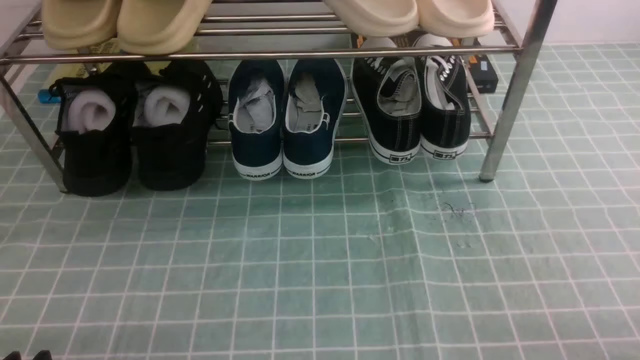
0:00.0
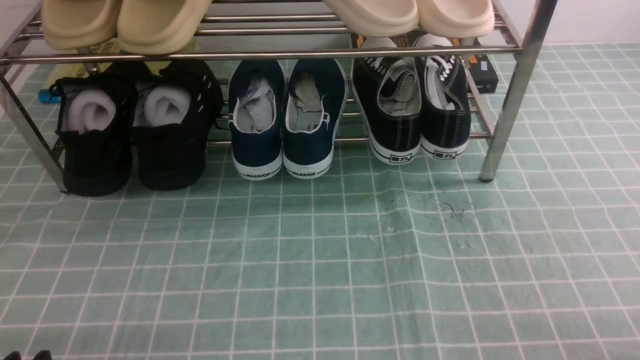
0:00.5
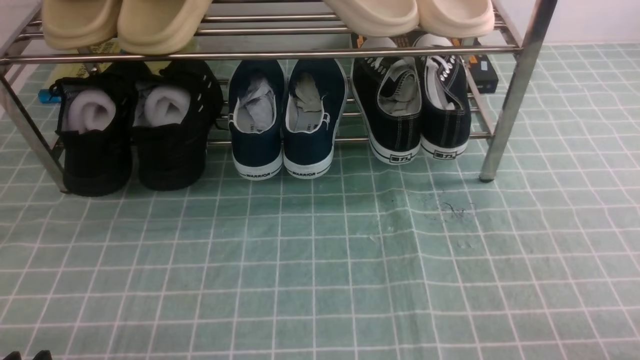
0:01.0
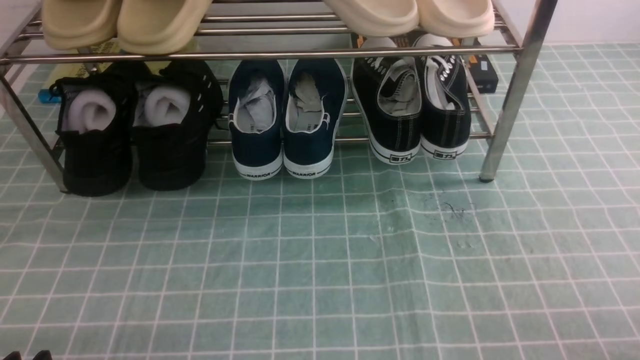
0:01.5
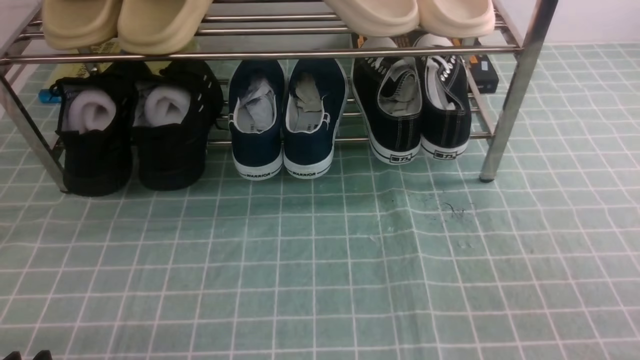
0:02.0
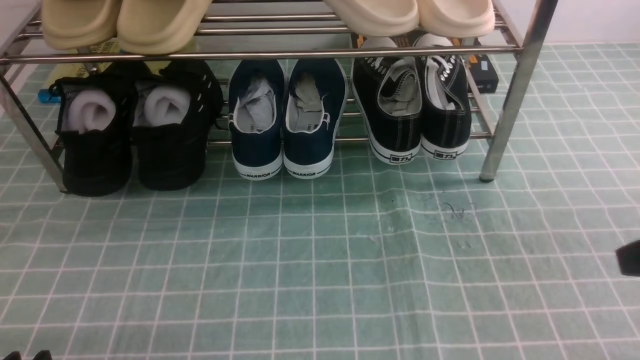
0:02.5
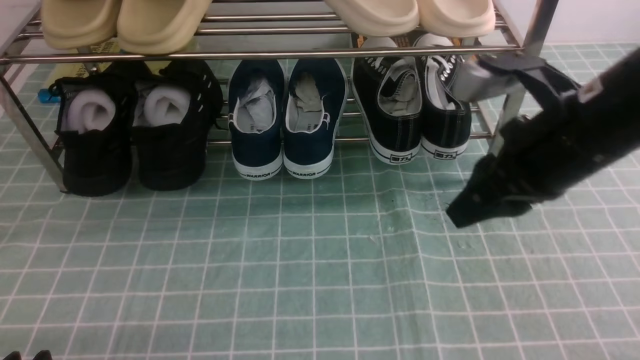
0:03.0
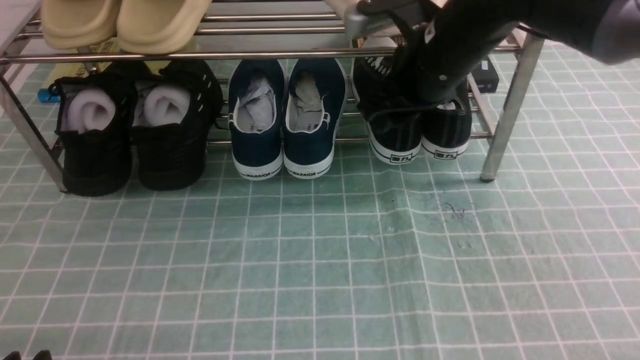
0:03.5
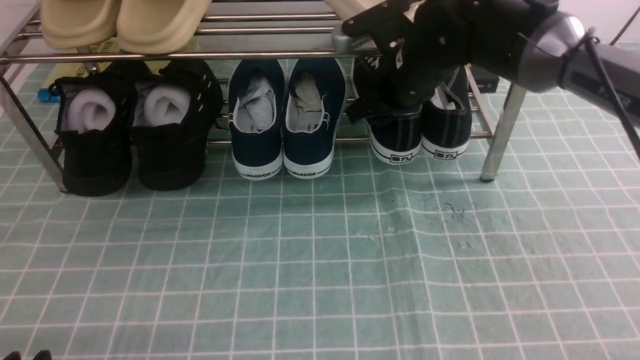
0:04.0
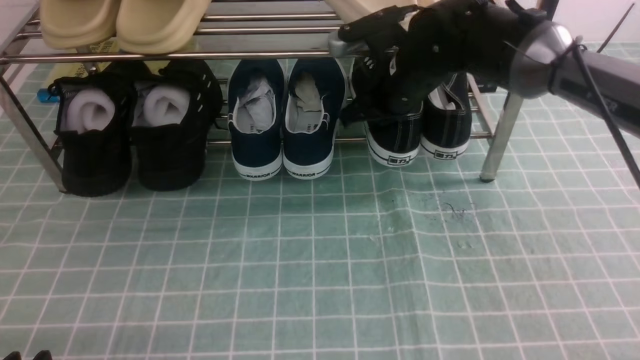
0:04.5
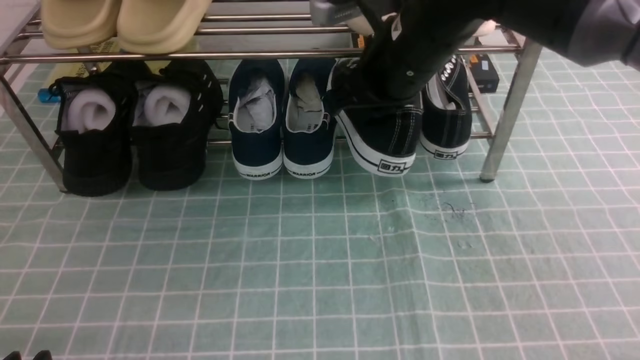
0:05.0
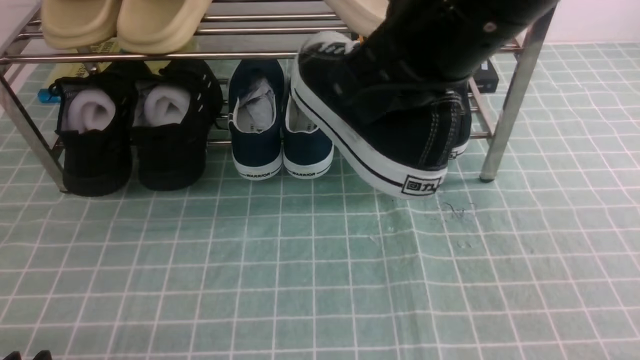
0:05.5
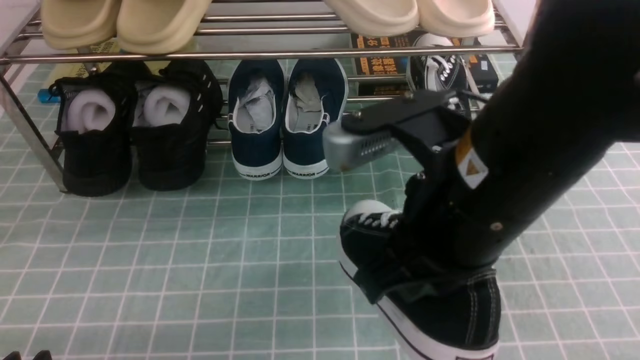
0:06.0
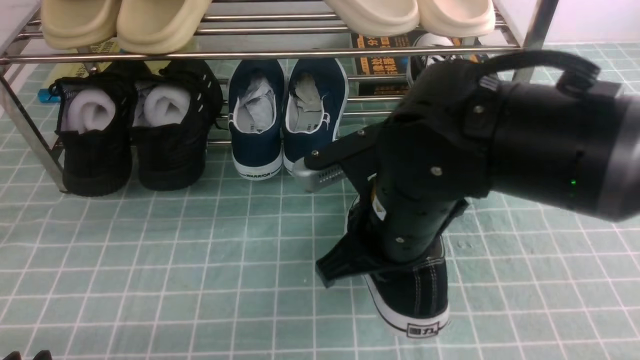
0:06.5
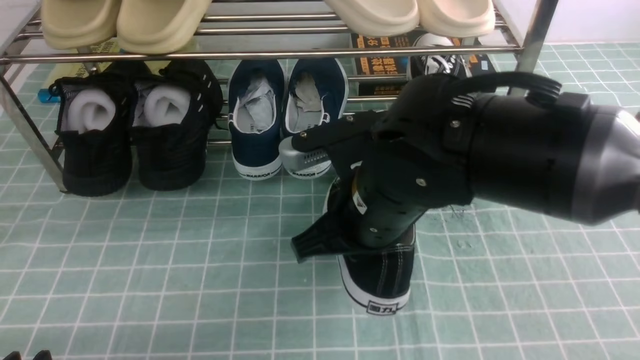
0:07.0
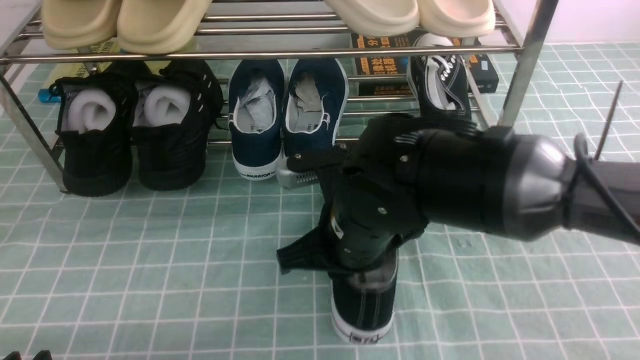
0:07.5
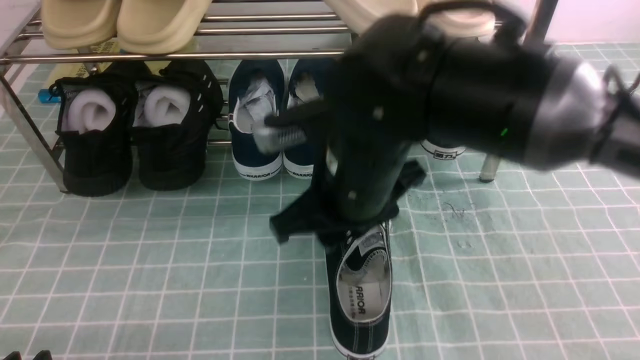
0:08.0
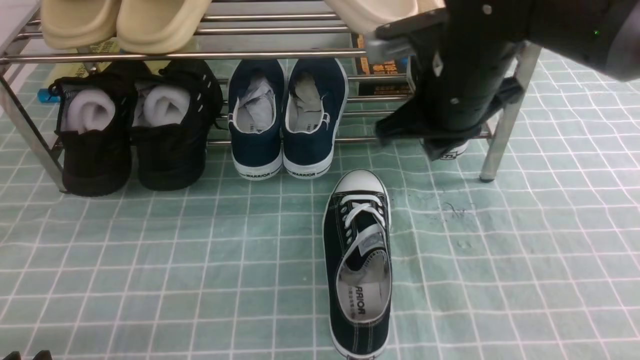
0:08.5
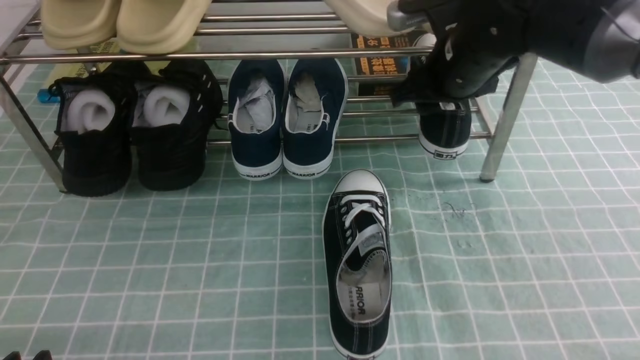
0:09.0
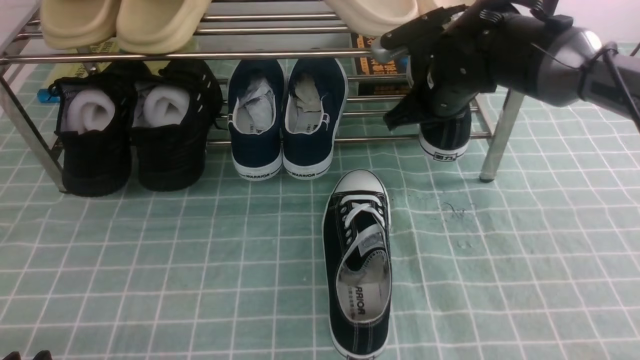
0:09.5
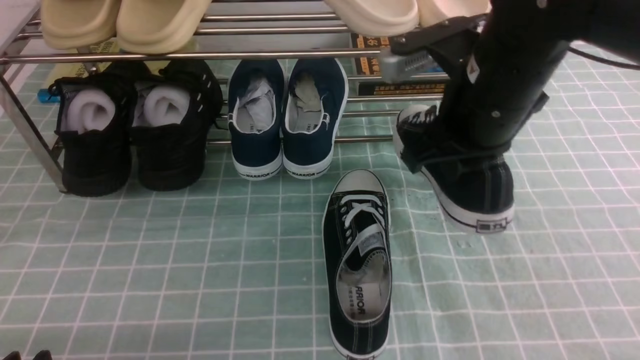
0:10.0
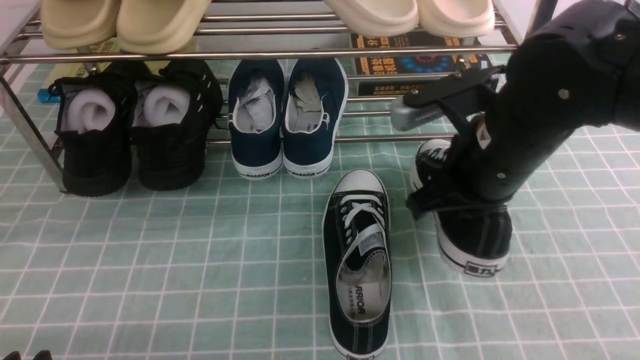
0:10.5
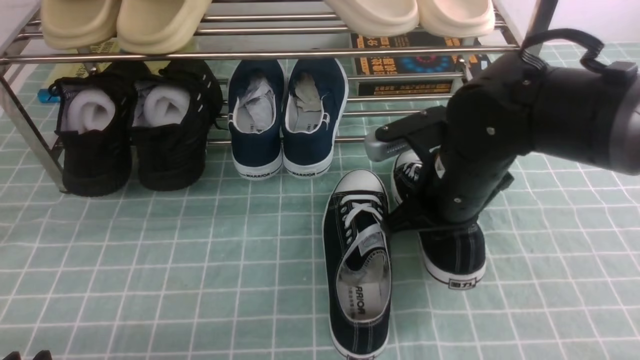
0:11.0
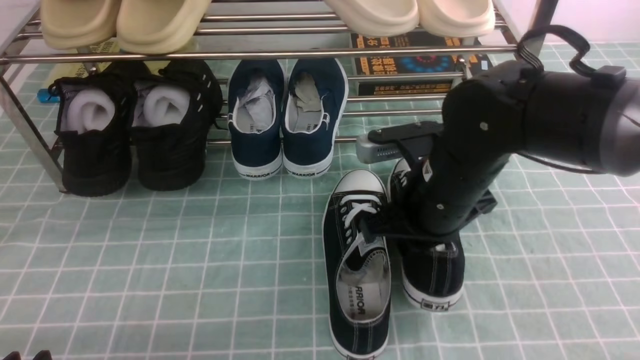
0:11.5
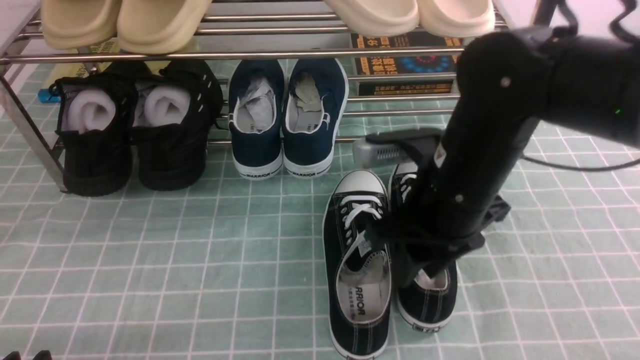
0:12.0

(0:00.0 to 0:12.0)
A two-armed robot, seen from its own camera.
Step, 0:00.0 - 0:04.5: use the right arm to clamp a shoe on the right side of the shoe rack.
Step, 0:05.0 - 0:08.0: use the right arm to take out the clamped shoe from the shoe rack and put it down.
Step, 0:08.5 - 0:09.5: use the right arm to clamp a shoe on the right side of the shoe rack.
0:02.0 - 0:04.0: The right gripper travels forward and to the left by some 40 cm, and opens up.
0:04.0 - 0:06.0: The right gripper travels backward by about 25 cm, and closes.
0:06.0 - 0:08.0: The right gripper is displaced downward, forward and to the left by roughly 15 cm, and opens up.
0:08.0 - 0:10.0: The right gripper is displaced to the right and forward by about 15 cm, and closes.
0:10.0 - 0:12.0: The right gripper heads backward and downward, covering roughly 10 cm, and opens its fingers.

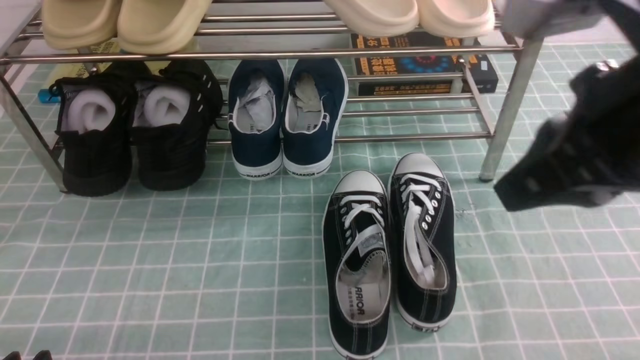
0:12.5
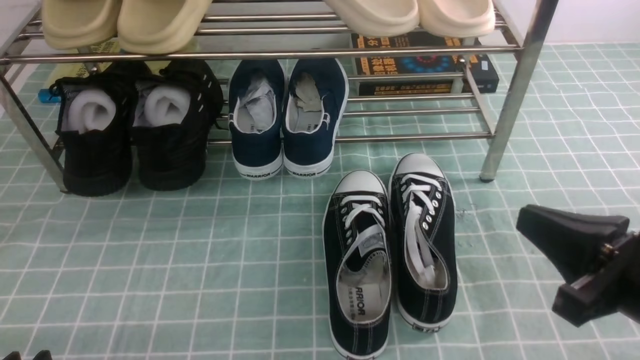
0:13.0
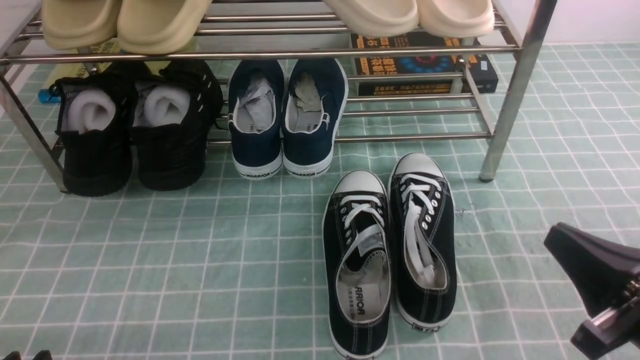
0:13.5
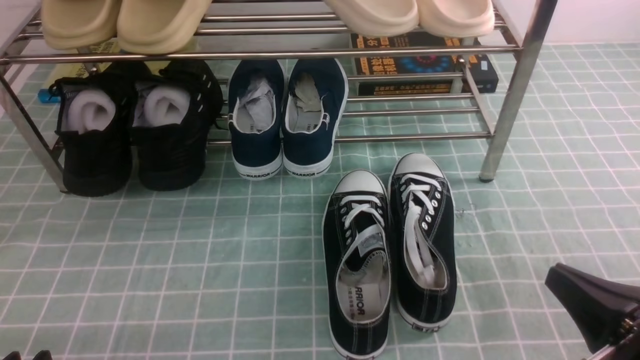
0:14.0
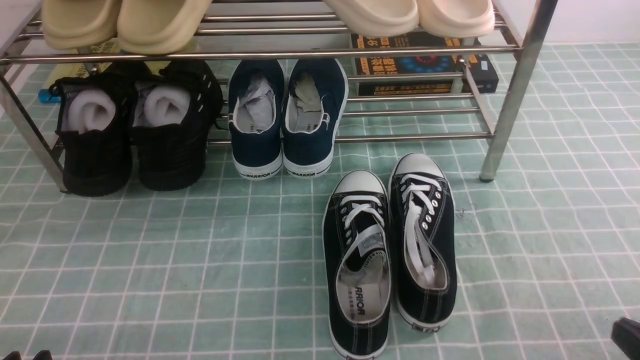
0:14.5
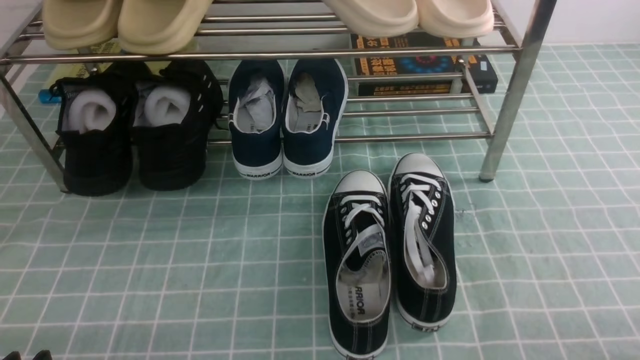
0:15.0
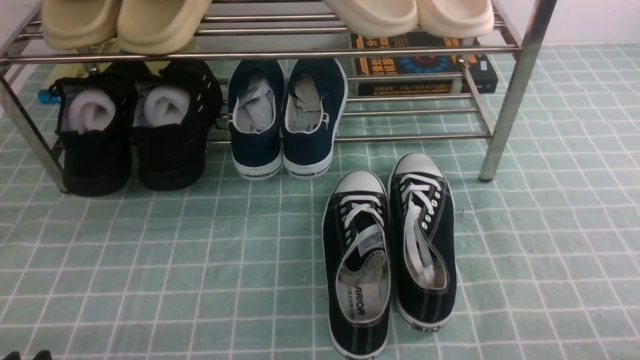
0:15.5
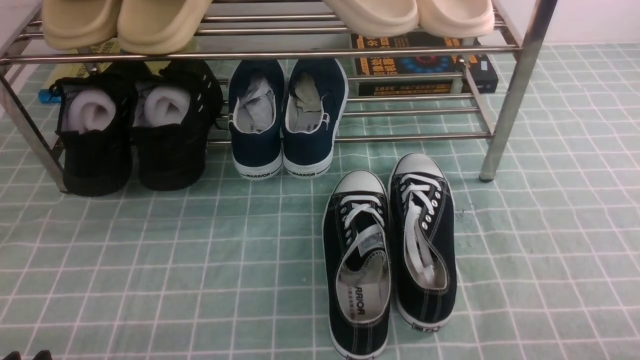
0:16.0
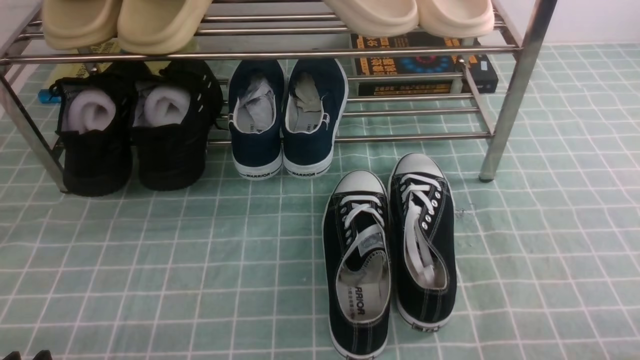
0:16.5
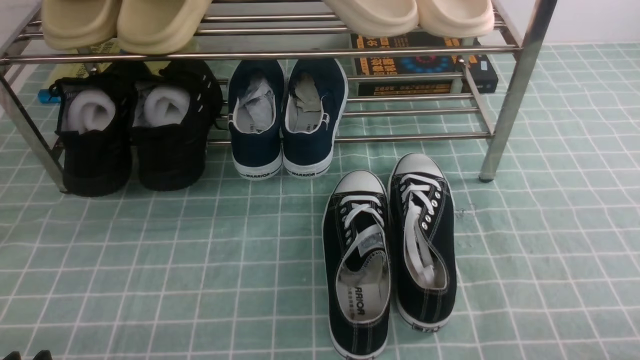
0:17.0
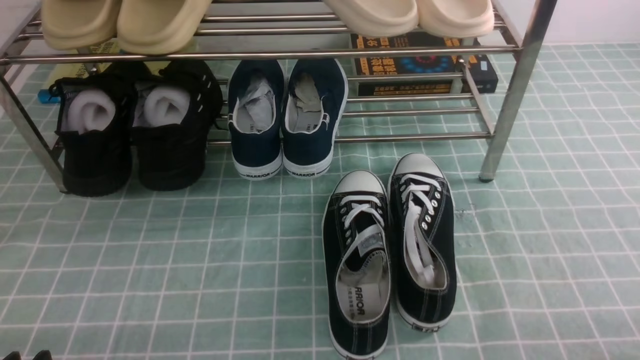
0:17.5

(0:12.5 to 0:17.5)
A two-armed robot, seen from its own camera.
0:12.5 - 0:15.0: The right gripper goes some 30 cm downward, to the right and backward.
0:15.0 - 0:17.5: The two grippers keep their place.
